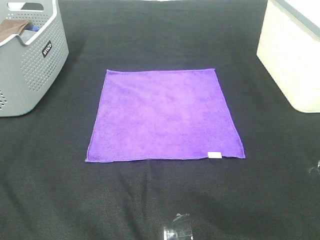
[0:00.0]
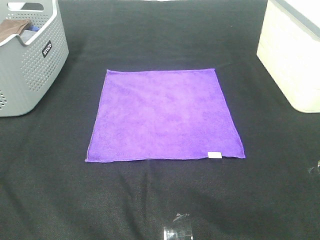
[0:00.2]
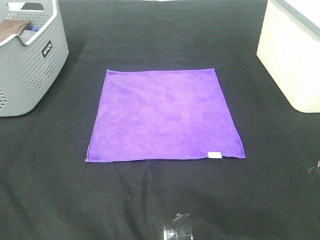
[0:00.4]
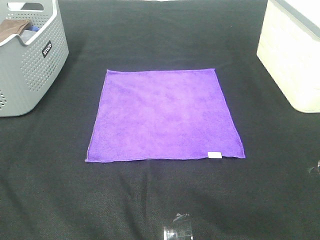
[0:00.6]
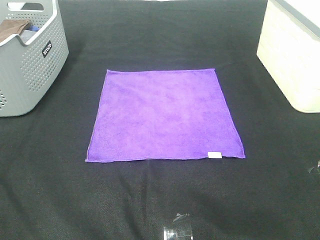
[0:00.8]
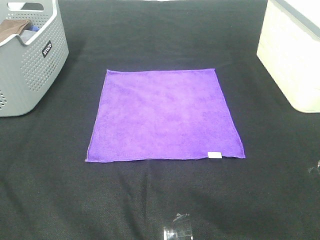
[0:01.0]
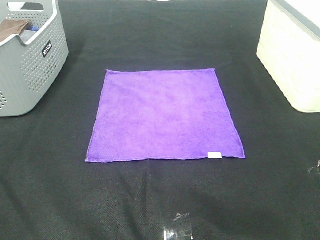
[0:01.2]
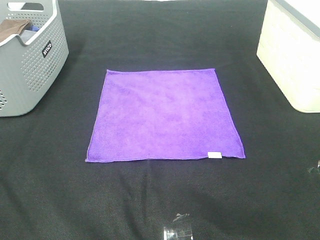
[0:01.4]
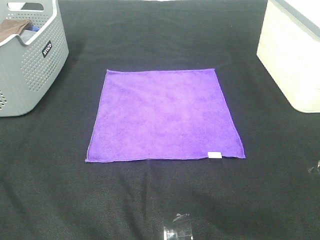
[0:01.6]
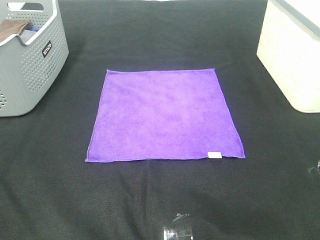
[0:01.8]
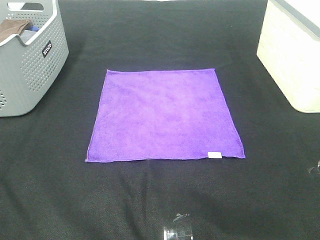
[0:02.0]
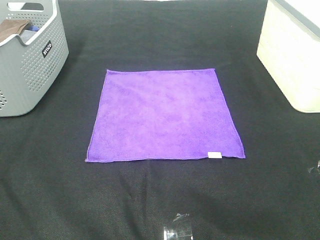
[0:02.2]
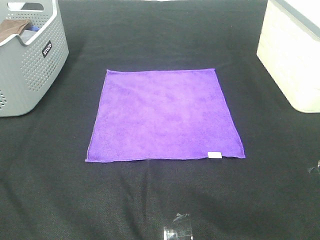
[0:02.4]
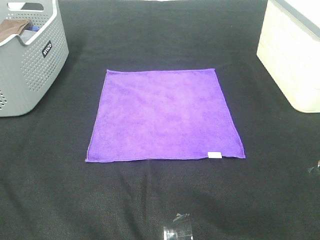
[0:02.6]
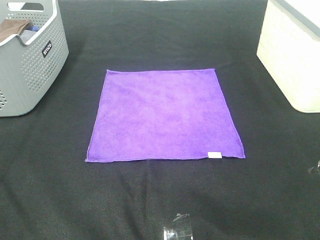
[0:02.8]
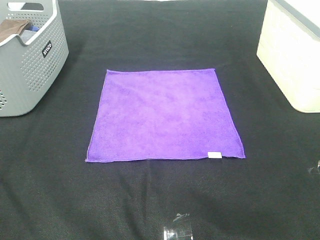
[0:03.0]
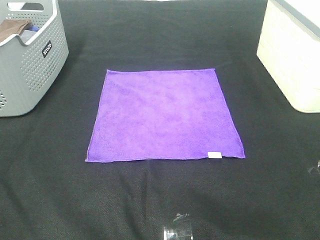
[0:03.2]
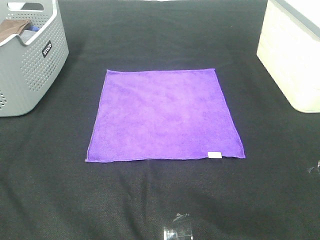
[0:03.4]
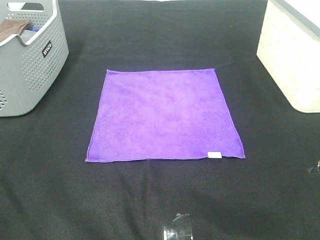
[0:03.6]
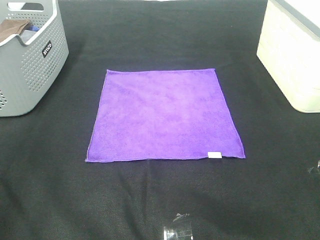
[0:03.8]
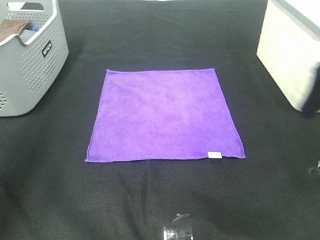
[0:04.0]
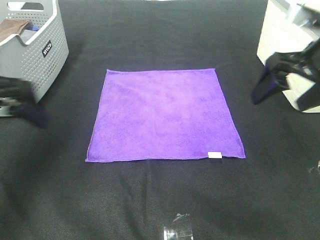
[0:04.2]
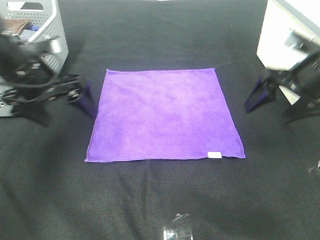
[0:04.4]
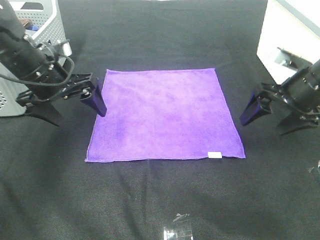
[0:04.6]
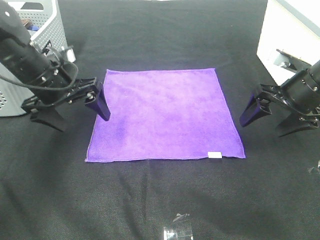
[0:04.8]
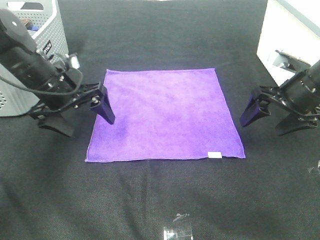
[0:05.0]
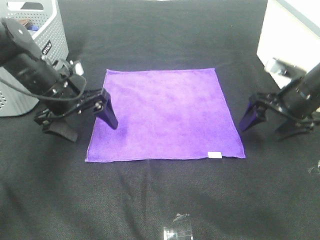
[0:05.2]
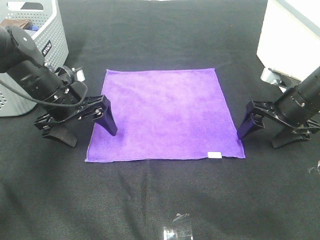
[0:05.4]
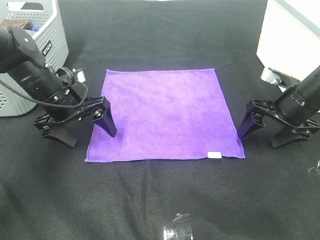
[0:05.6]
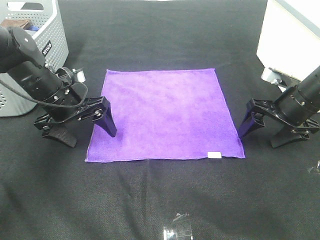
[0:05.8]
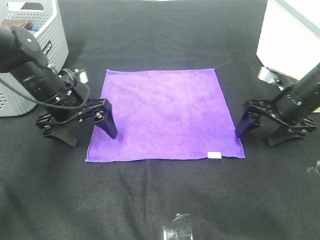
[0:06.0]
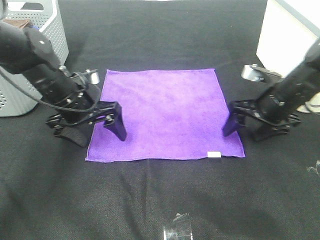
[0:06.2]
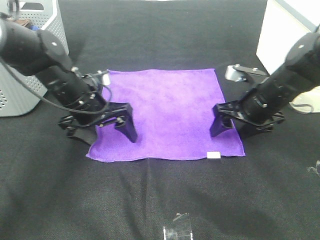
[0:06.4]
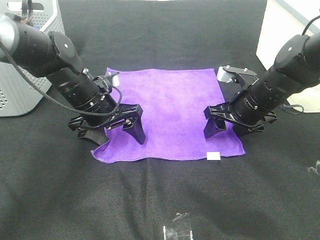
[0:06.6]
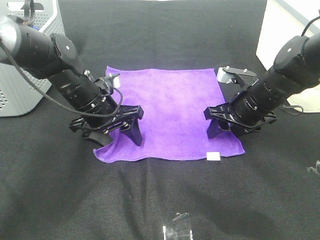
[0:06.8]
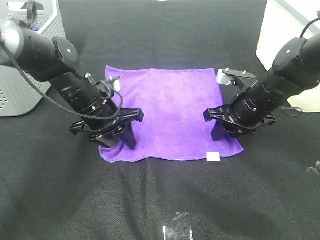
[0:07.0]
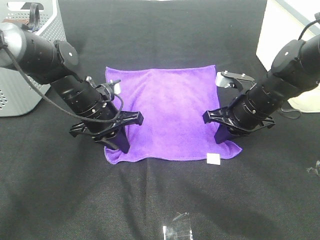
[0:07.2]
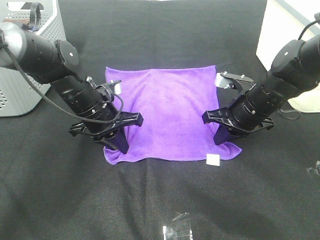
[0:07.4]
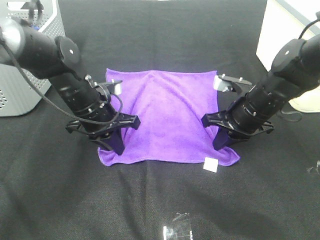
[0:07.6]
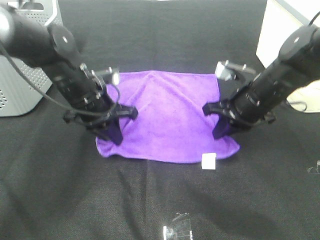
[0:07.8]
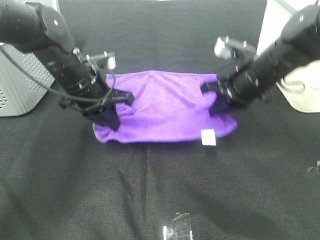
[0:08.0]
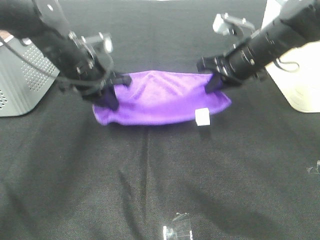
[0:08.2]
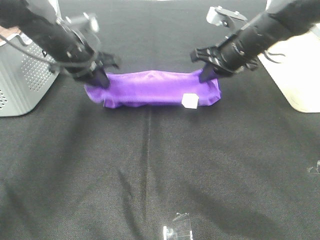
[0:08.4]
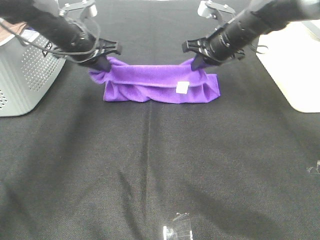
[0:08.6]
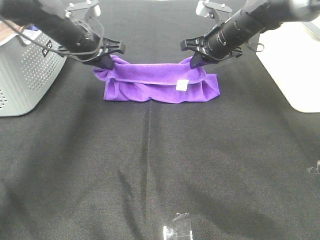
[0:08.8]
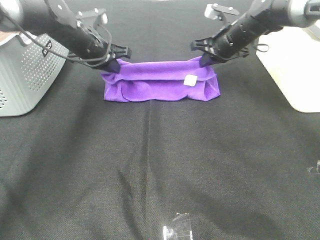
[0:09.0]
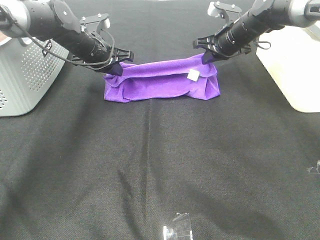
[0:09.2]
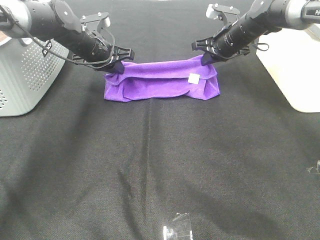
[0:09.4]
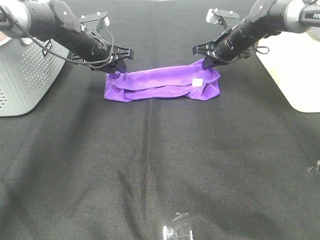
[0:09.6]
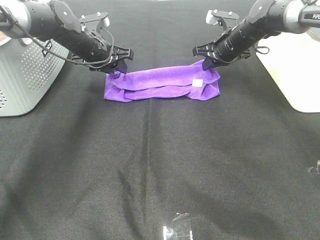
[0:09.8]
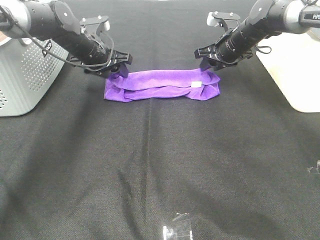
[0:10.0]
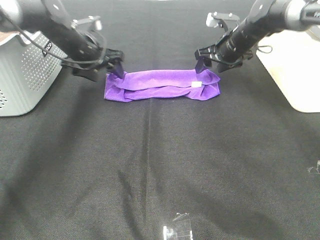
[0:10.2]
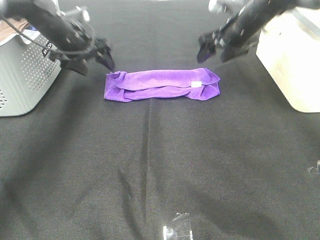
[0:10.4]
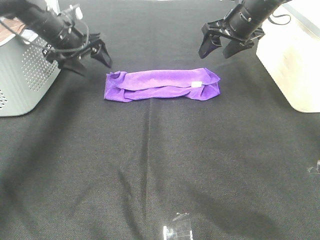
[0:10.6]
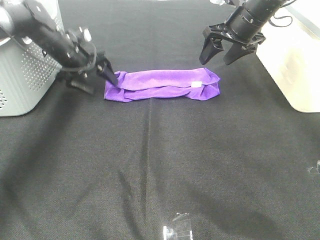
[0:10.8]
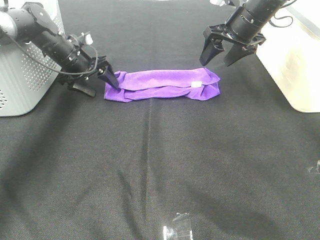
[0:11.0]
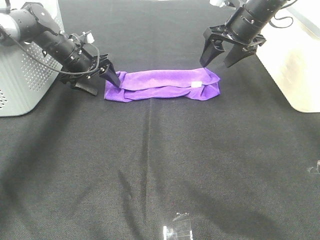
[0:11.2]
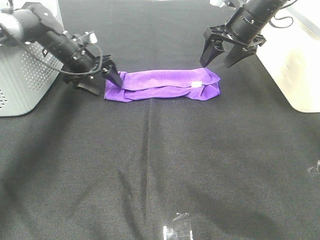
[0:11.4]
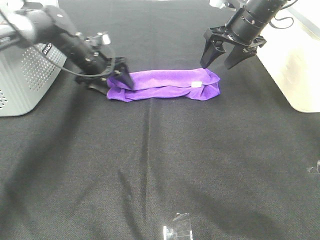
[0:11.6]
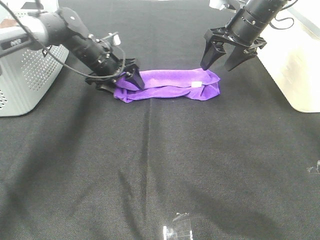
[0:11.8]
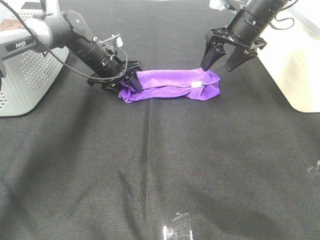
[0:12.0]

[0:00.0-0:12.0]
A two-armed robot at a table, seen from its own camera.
Task of the whole recording: Fold towels.
Step, 0:00.0 to 0:07.4: Left hand: grab the bottom left corner of purple towel.
Step, 0:00.0 to 0:07.4: Right hand: grab the bottom right corner of purple towel.
Step, 0:07.6 to 0:09.4: Left hand: fold the purple towel up.
Step, 0:07.6 to 0:09.4: Right hand: fold the purple towel up.
0:00.0 to 0:03.0: The two grippers keep their place.
0:03.0 to 0:04.4: Both grippers travel together forward, roughly 35 cm.
0:04.4 to 0:06.0: The grippers both shift downward by some 10 cm.
0:06.0 to 0:07.6: The left gripper travels to the right by approximately 5 cm, and closes up. Meanwhile the right gripper moves to the left, approximately 10 cm, and closes its fingers.
0:07.6 to 0:09.0: Both grippers move forward, approximately 15 cm.
0:09.0 to 0:10.4: The left gripper shifts approximately 5 cm to the left, and opens. Meanwhile the right gripper shifts by about 5 cm, and opens.
0:10.4 to 0:12.0: The left gripper travels downward and to the right by about 10 cm, and closes its fingers.

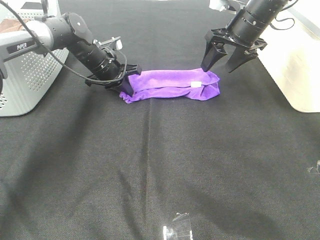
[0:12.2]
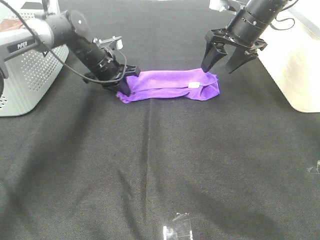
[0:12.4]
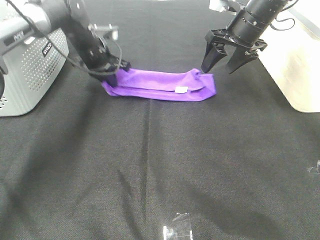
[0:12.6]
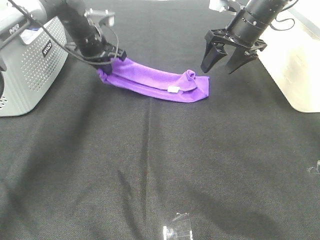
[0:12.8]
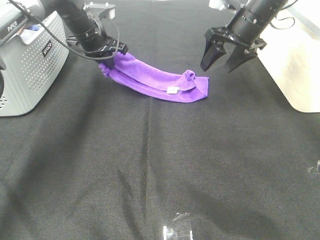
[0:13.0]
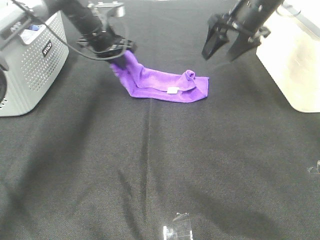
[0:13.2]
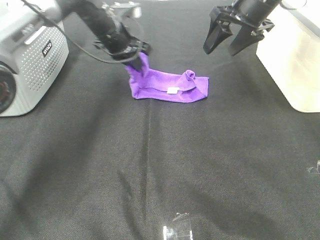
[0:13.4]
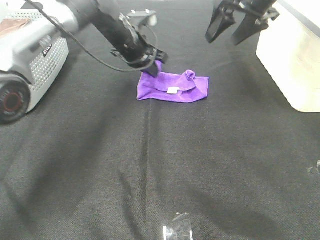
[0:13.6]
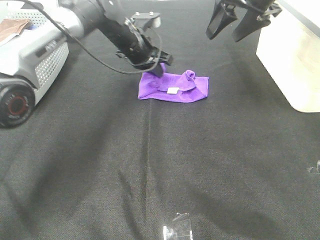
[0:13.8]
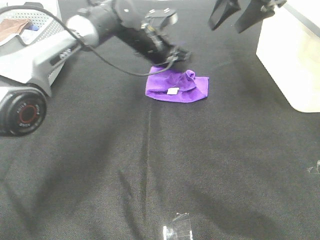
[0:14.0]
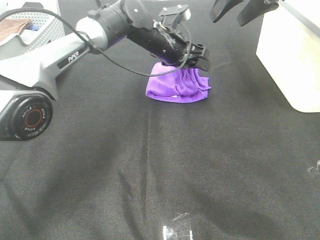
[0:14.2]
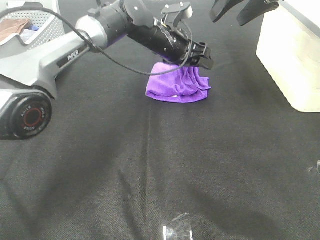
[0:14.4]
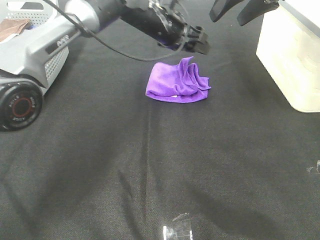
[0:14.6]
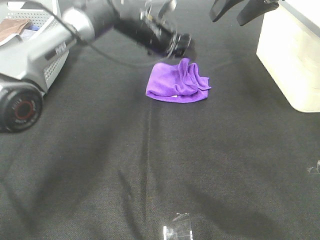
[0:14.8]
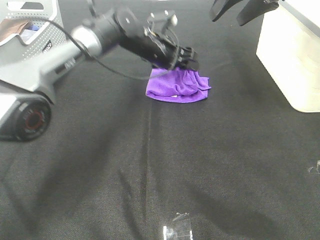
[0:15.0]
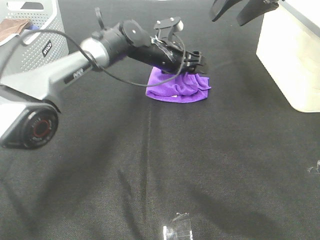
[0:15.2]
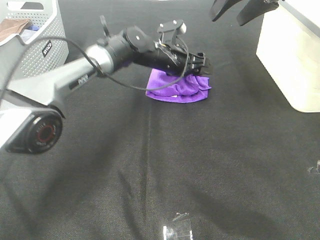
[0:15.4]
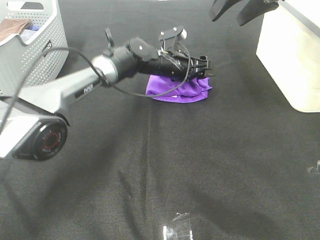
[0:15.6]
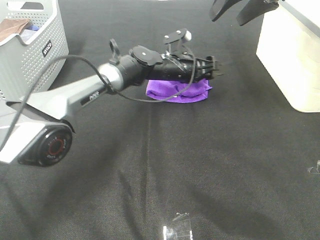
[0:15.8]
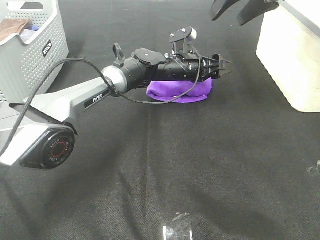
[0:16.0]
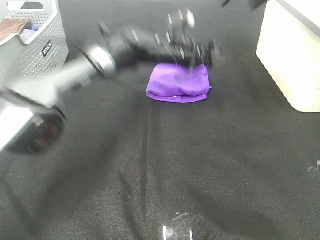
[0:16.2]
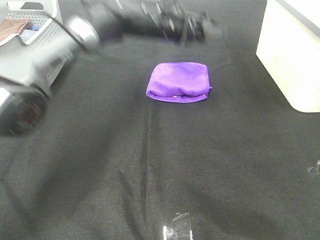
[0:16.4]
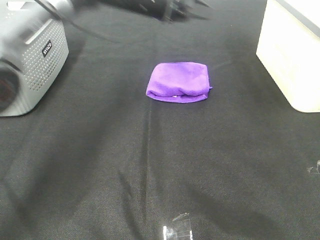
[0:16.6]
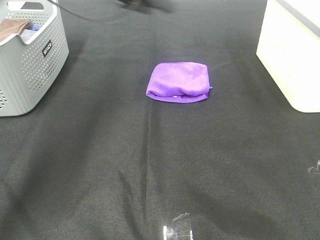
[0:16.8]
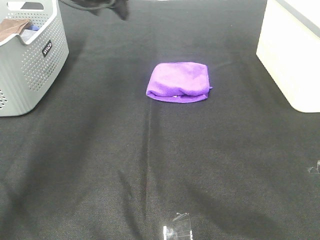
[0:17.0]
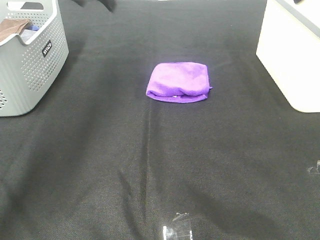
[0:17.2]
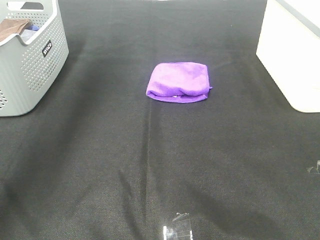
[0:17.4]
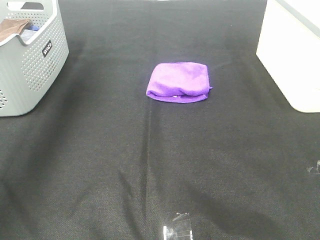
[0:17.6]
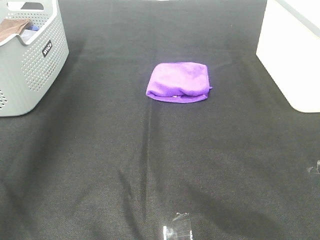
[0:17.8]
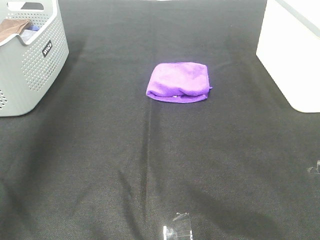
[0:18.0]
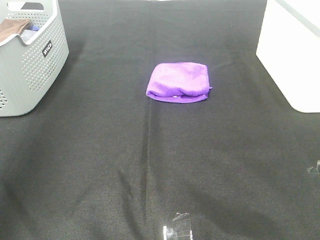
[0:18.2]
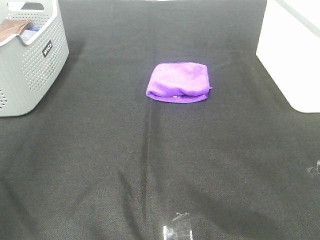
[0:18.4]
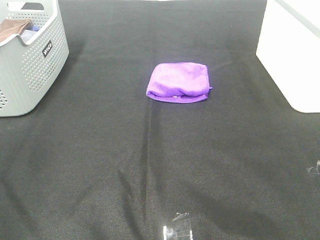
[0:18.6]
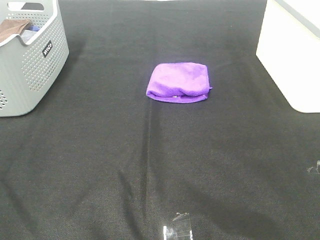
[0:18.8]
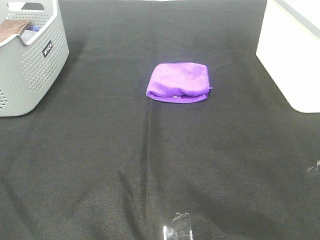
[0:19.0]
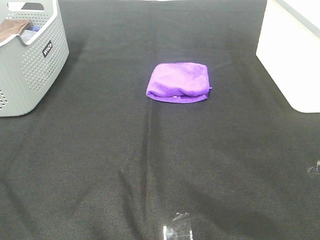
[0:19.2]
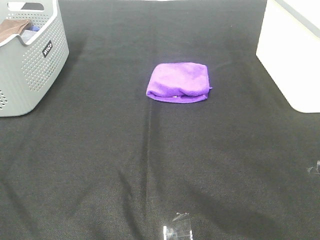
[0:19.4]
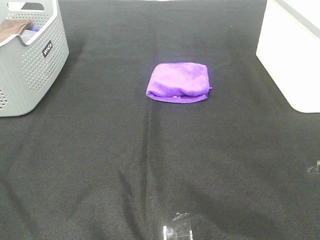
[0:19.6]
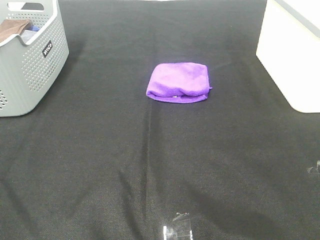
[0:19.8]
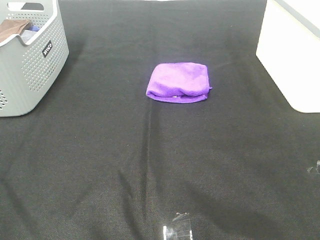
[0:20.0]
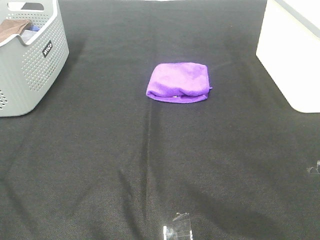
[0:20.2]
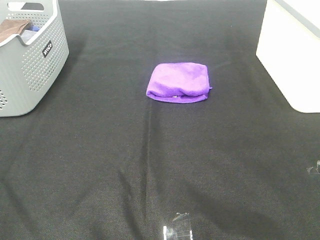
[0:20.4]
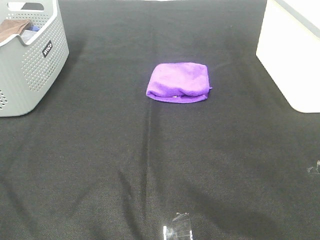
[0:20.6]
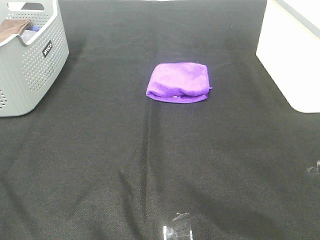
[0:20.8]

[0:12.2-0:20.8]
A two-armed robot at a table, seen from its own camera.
Task of the whole recording: Fold towels.
0:12.2 to 0:13.6: The left gripper goes roughly 10 cm to the right and upward. The right gripper is displaced upward by approximately 10 cm.
0:13.6 to 0:15.0: The left gripper is displaced to the right by approximately 5 cm, and opens.
0:15.0 to 0:16.6: The left gripper travels upward by some 10 cm. Meanwhile the right gripper goes roughly 5 cm upward.
0:16.6 to 0:18.0: The left gripper goes about 35 cm backward, to the left and upward; the right gripper moves backward, approximately 30 cm.
0:18.0 to 0:19.4: The left gripper moves backward and downward, approximately 30 cm.

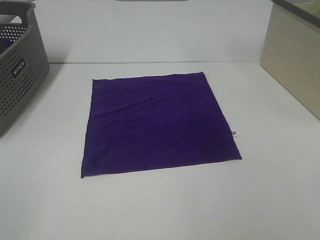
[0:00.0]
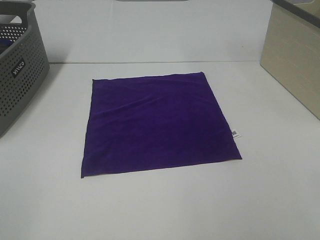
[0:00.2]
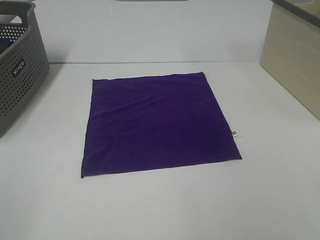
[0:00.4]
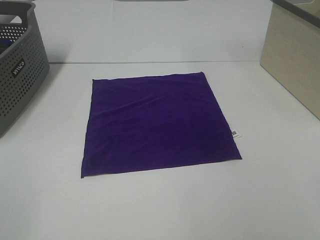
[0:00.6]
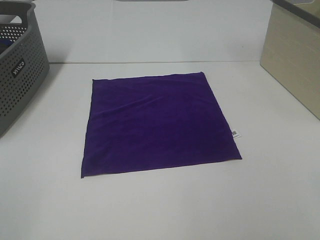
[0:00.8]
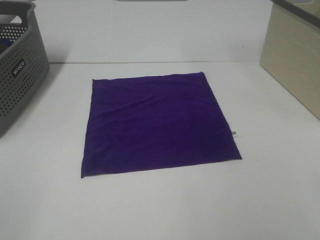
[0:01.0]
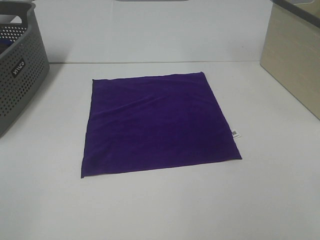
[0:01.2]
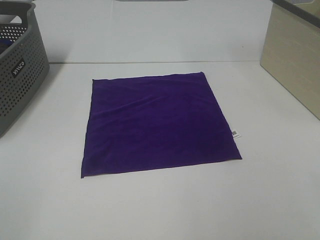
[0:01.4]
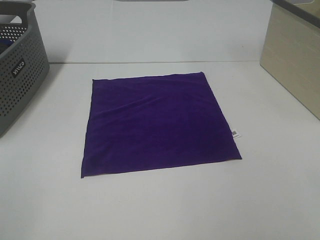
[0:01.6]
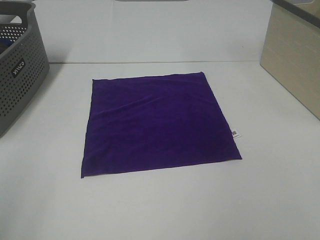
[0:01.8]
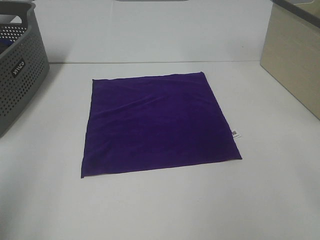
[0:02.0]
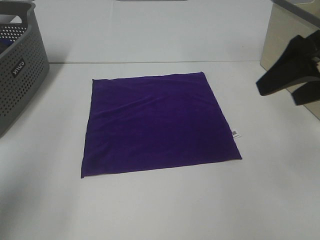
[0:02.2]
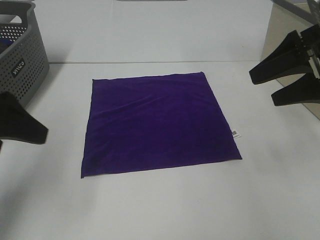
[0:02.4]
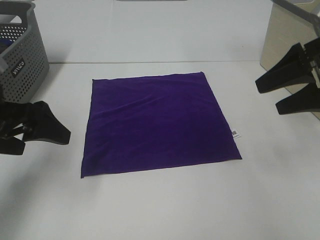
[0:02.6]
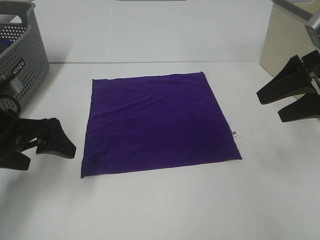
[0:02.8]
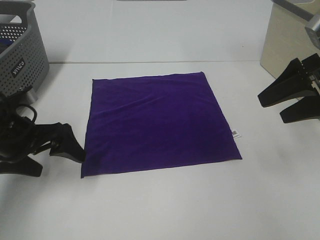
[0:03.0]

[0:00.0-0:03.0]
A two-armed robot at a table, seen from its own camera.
Task of the whole recording: Fold towels.
0:01.6 to 0:03.0: The right gripper moves forward, about 30 cm, while the left gripper travels forward and downward by approximately 30 cm.
